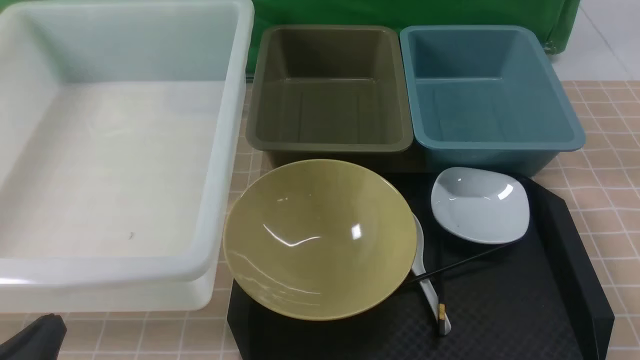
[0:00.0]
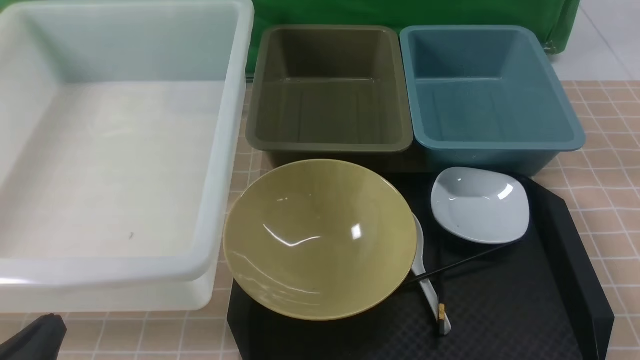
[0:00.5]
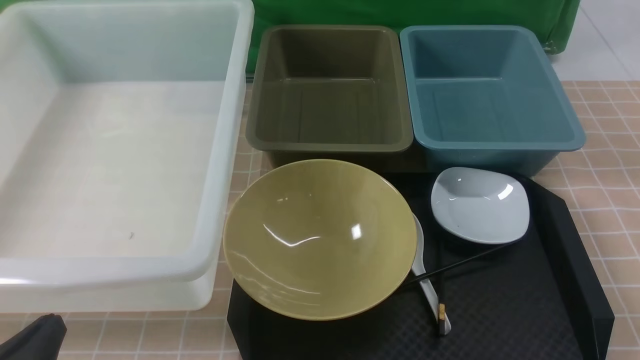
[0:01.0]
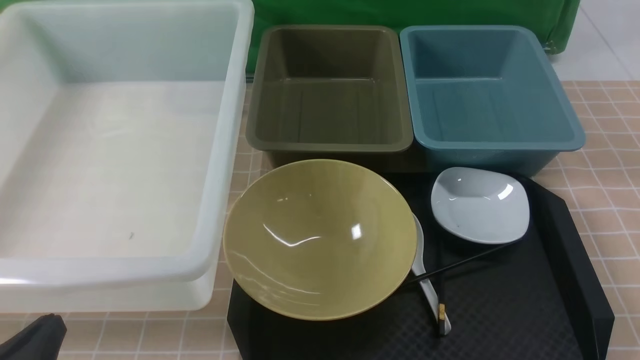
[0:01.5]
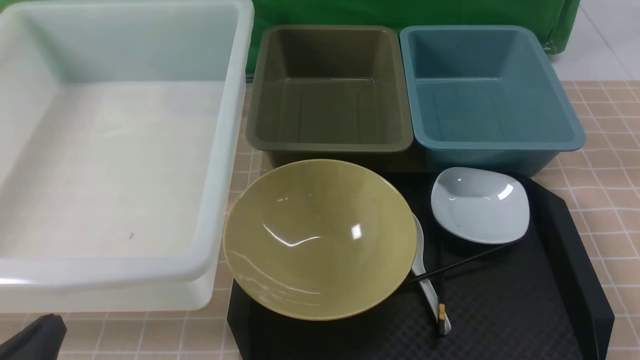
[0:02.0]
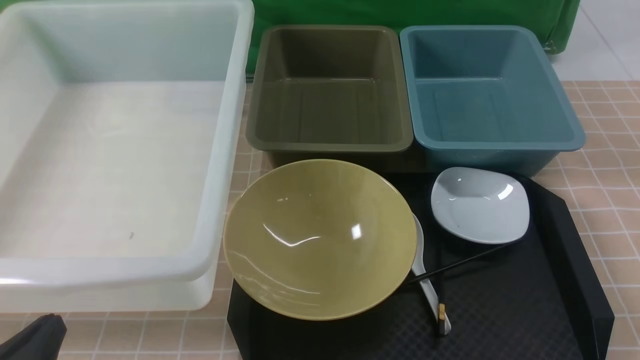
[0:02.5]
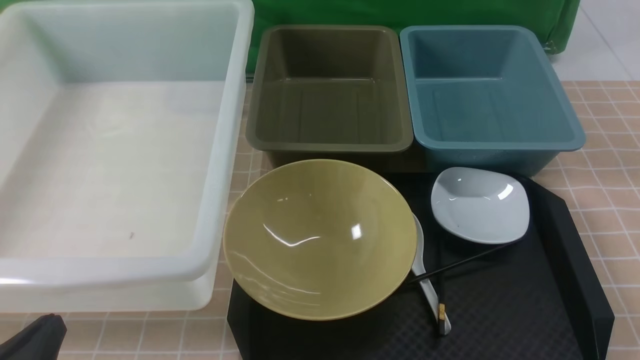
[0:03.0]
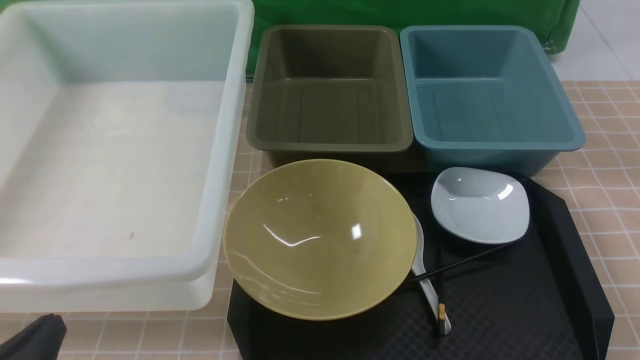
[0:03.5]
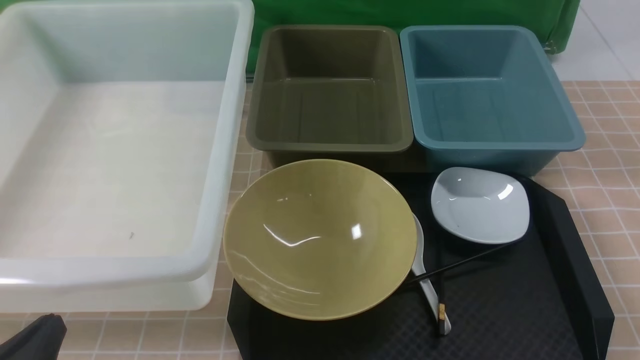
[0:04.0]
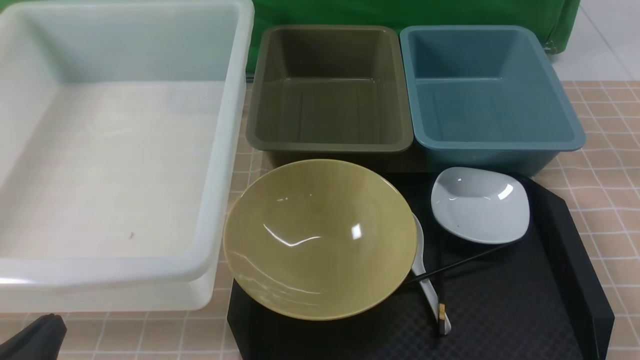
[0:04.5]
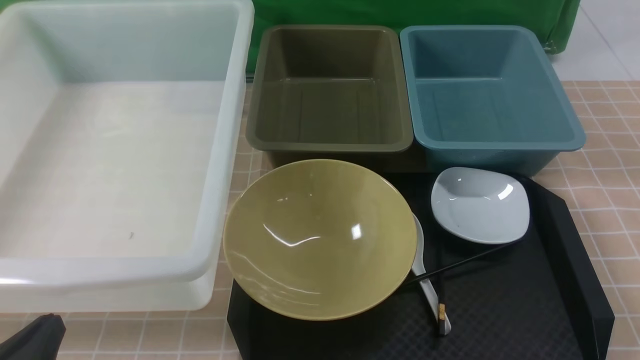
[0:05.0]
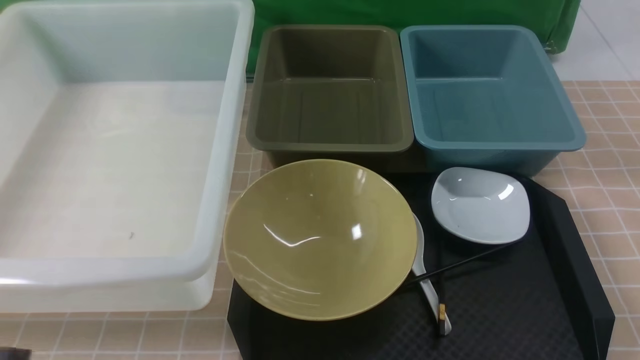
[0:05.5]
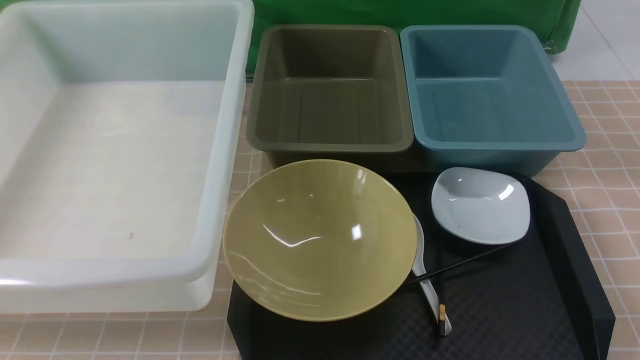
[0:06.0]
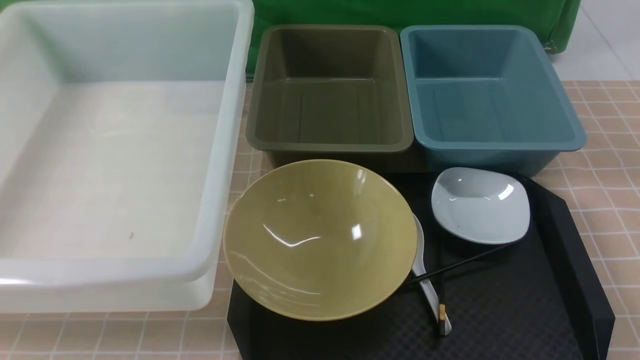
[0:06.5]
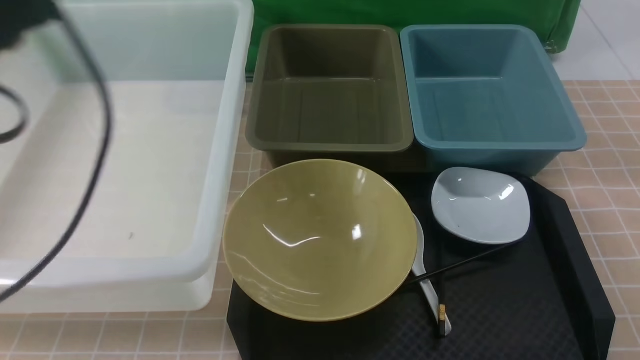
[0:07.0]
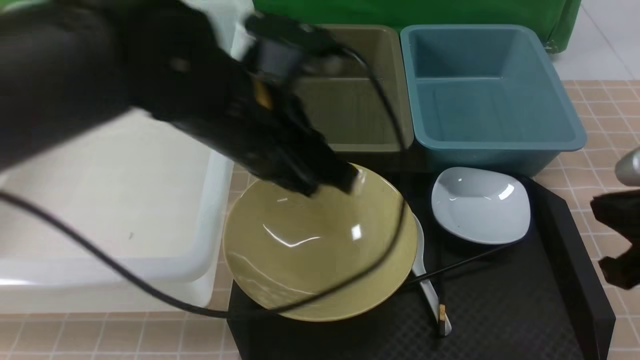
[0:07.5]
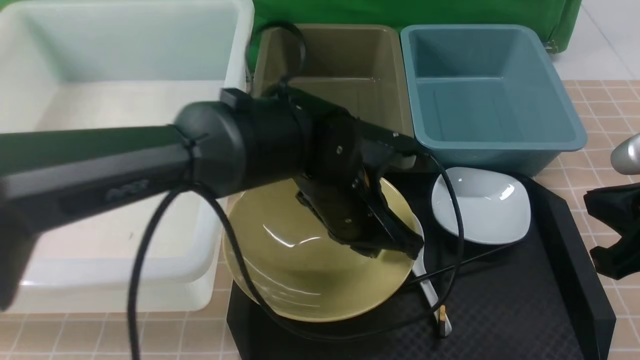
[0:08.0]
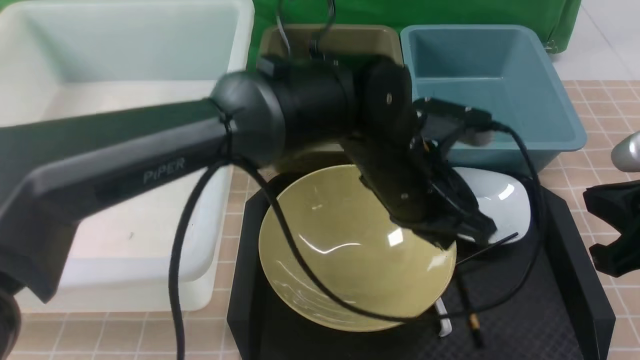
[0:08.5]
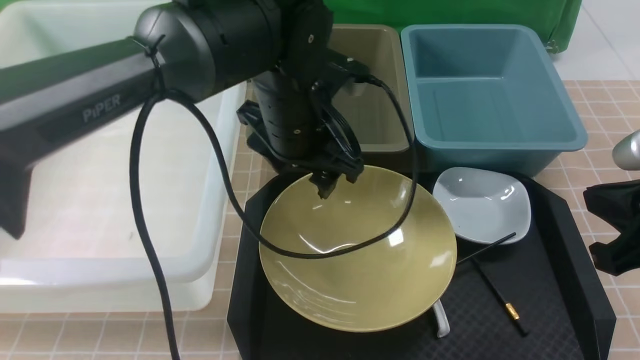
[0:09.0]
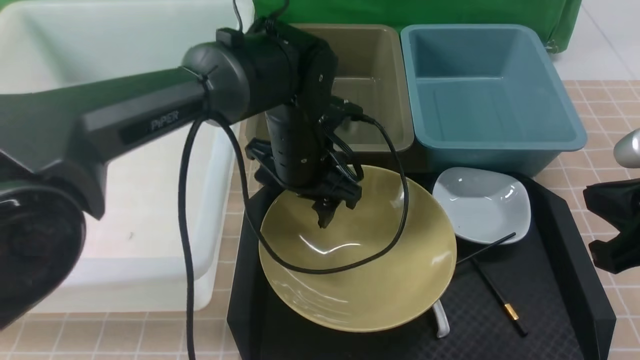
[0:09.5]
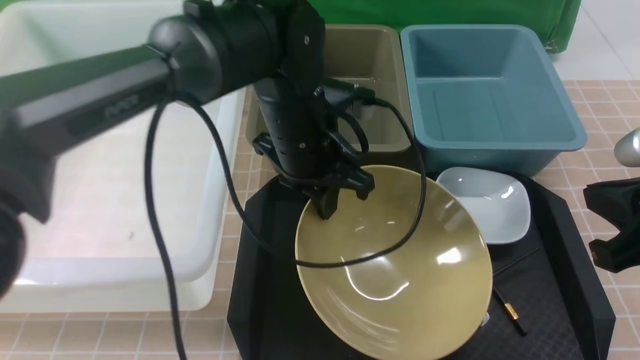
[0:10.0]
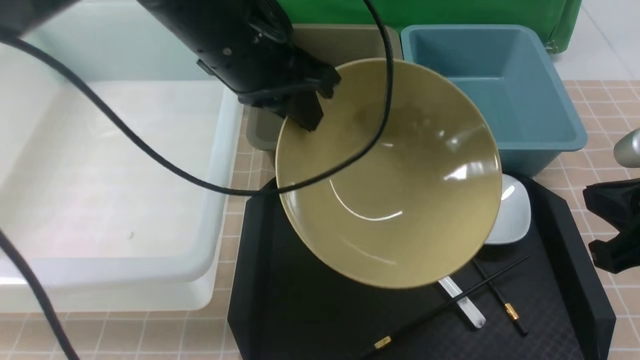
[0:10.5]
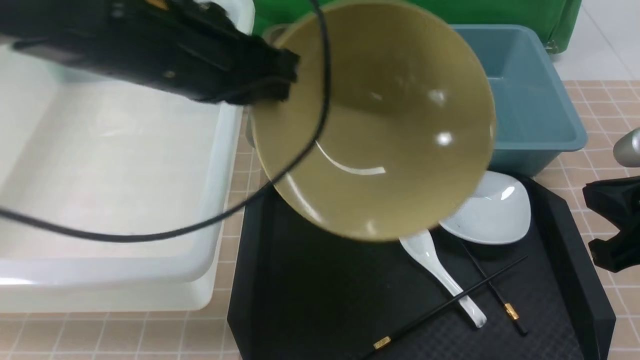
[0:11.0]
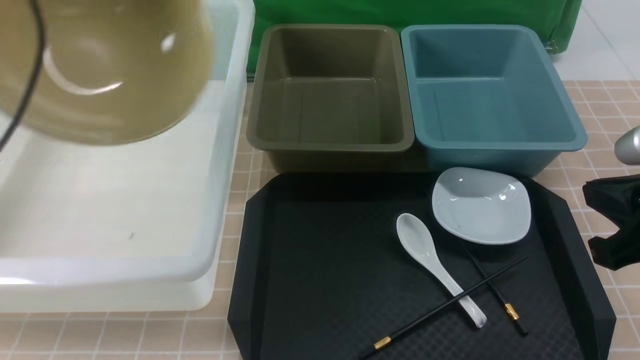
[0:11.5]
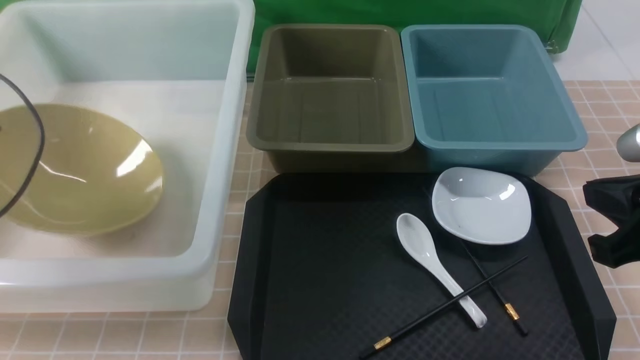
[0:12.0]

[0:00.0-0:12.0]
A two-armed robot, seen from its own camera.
Task of the whole recording: on brown table put chopsticks spoon bowls plates into blue grey white boxes.
Step, 0:00.0 to 0:10.0: use the left arm to grab the yellow noodle bowl on the left.
0:00.0 to 0:04.0: Neither gripper changes place.
0:04.0 to 0:06.0: The left gripper shifts roughly 5 cm upward.
0:06.0 to 0:08.0: The right gripper travels forward by approximately 15 cm, and closes up. Meanwhile the left gripper goes roughly 35 cm to the right and forward.
0:08.0 to 0:10.0: The left gripper is displaced to the left and forward by roughly 10 cm, and opens and closes again.
0:10.0 to 0:12.0: The left gripper moves to the left, approximately 35 cm.

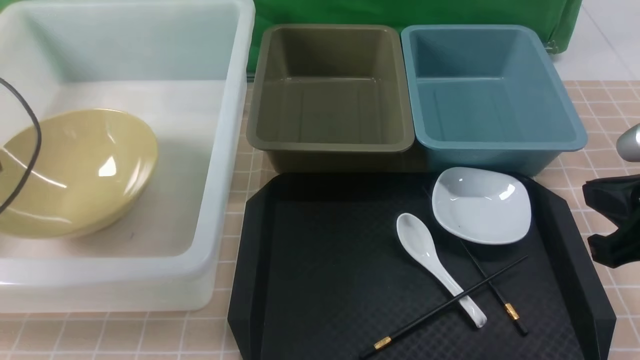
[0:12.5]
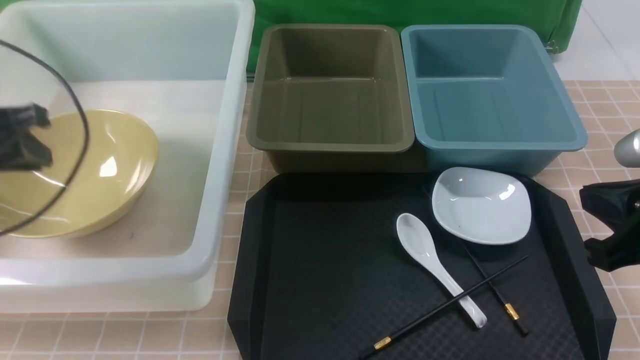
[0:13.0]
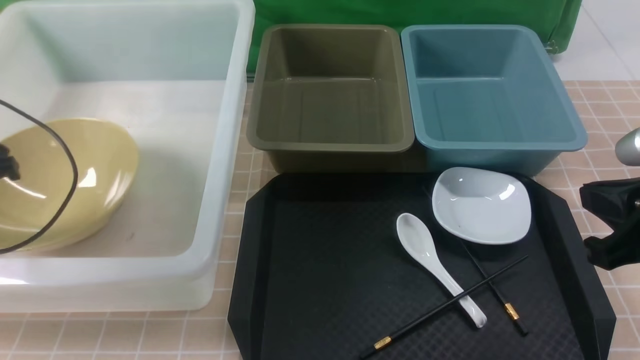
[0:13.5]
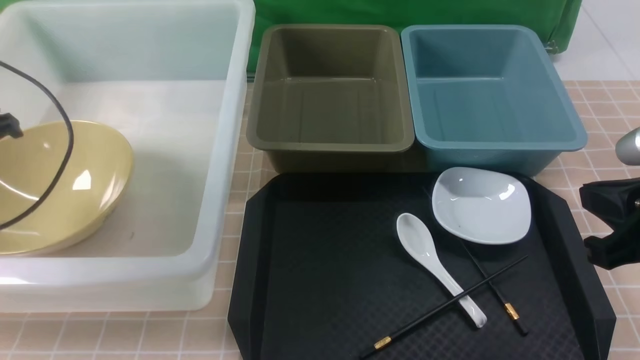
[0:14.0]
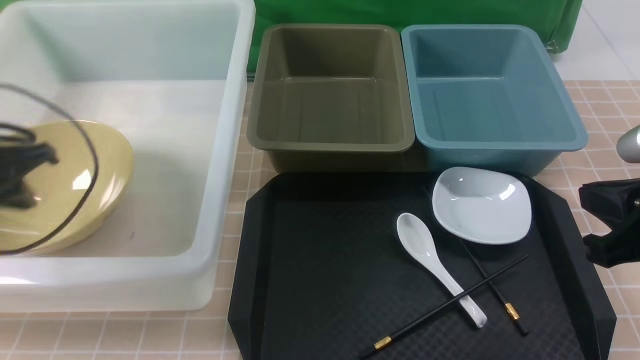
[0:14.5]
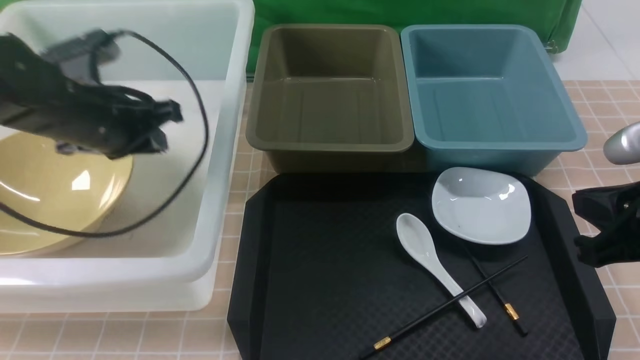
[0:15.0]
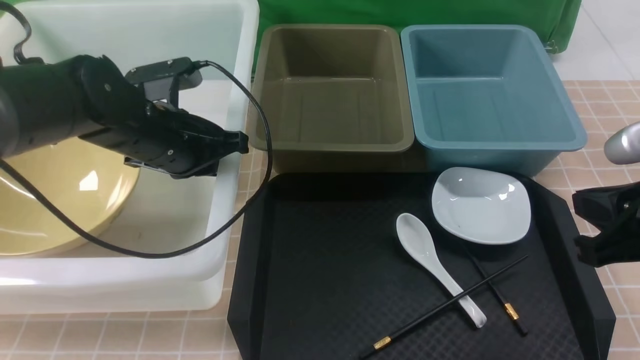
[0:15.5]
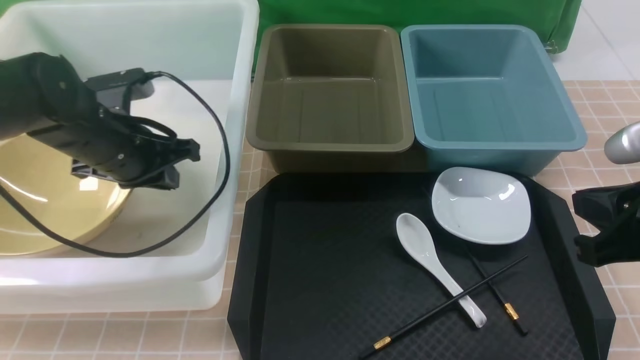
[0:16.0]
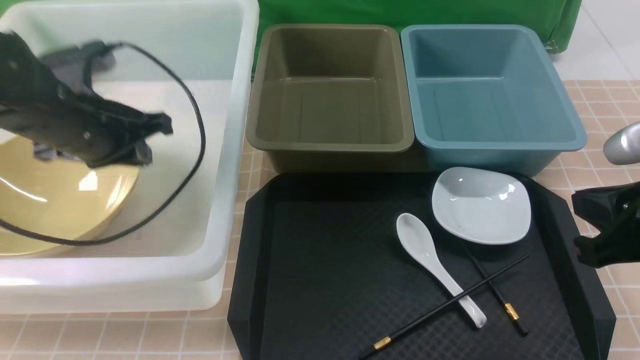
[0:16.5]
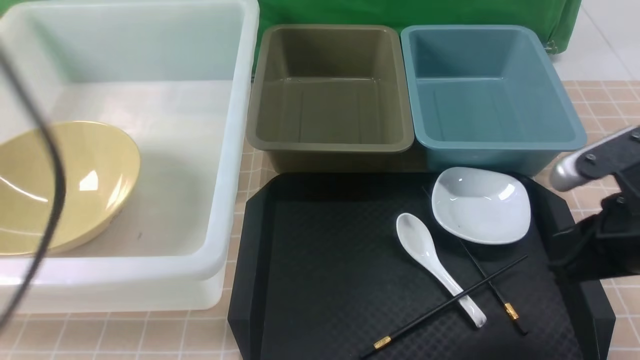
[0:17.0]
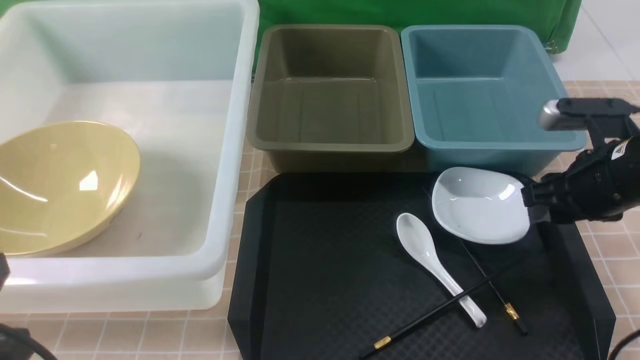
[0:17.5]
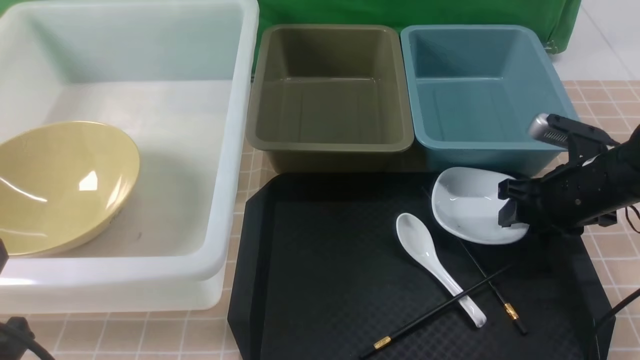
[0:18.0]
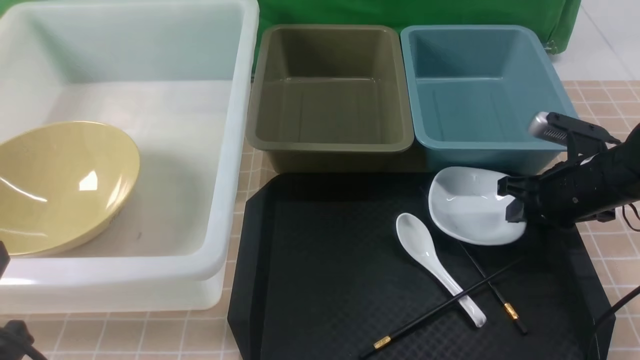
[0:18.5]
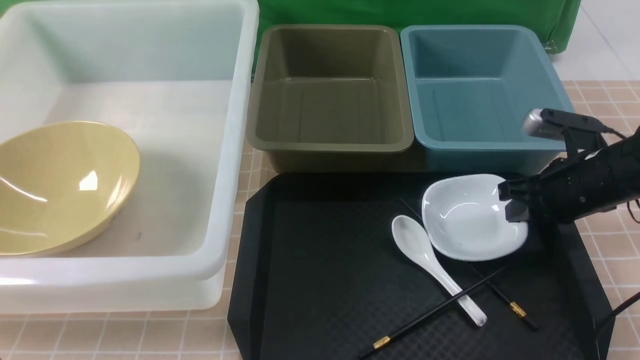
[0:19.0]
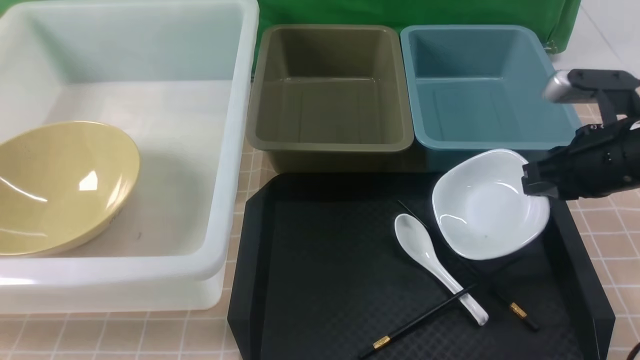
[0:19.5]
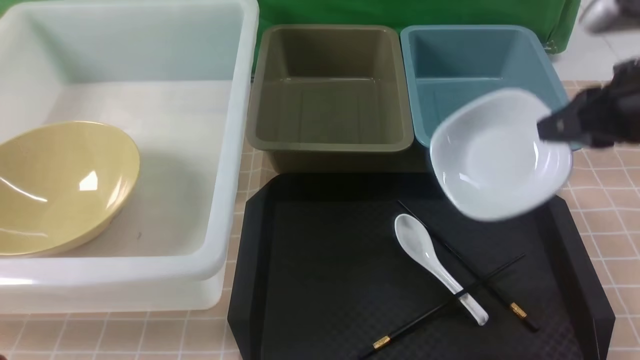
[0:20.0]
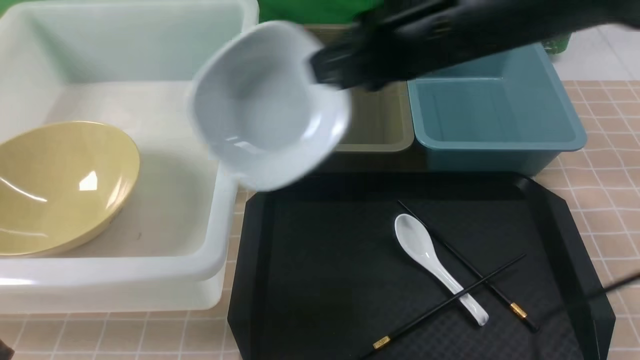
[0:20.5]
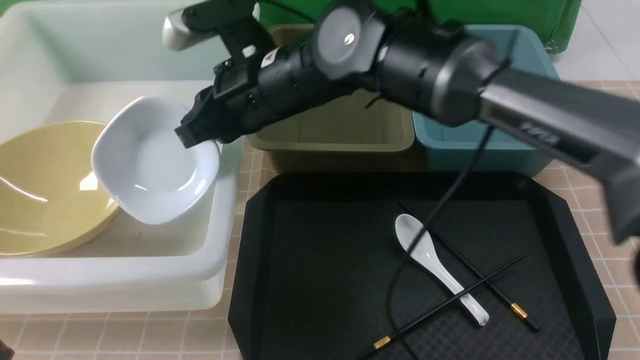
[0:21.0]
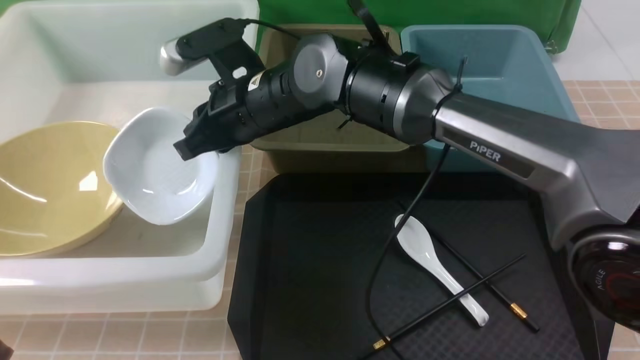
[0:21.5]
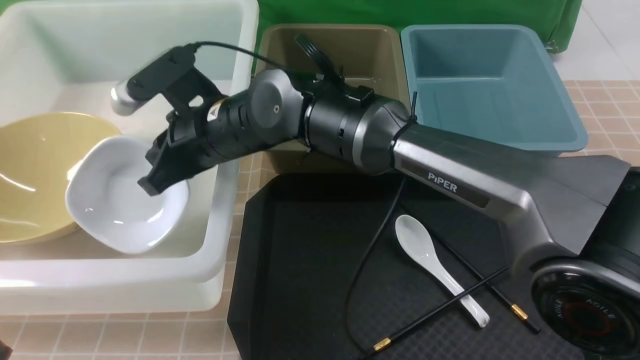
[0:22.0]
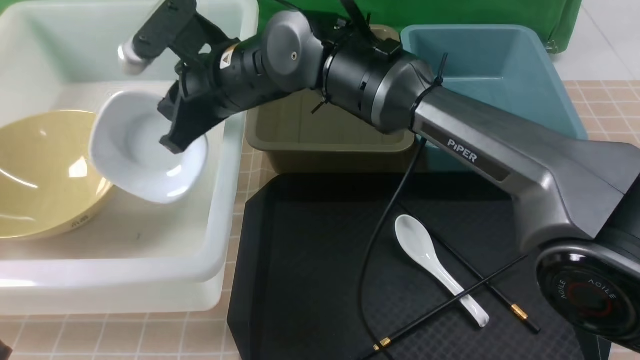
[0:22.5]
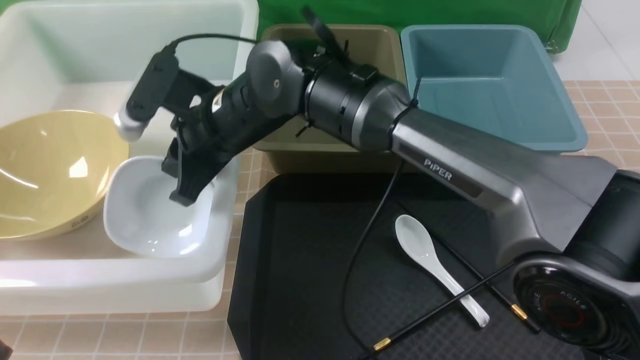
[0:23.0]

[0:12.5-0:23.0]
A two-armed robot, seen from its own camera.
Task of the whole recording: on brown table put chopsticks spoon bowls plates into blue grey white boxes.
Step, 0:13.5 to 0:19.0: use the right arm to grab the plate.
0:12.5 to 0:14.5: The left gripper moves to the right, approximately 5 cm, and closes up.
0:14.5 to 0:16.5: The left gripper goes approximately 10 cm to the right.
0:16.5 to 0:19.0: The right gripper travels forward and downward by some 15 cm, and opens and closes again, while the left gripper goes some 25 cm backward.
0:19.0 to 0:21.0: The right gripper is displaced to the left by approximately 30 cm.
0:21.0 to 0:23.0: The right gripper shifts by about 5 cm.
